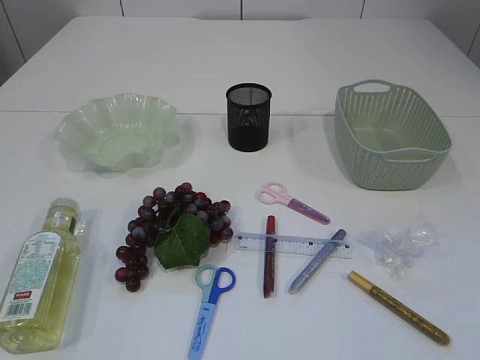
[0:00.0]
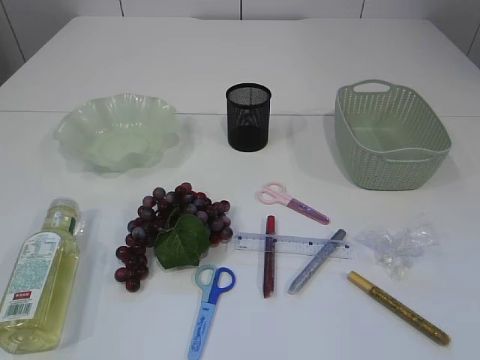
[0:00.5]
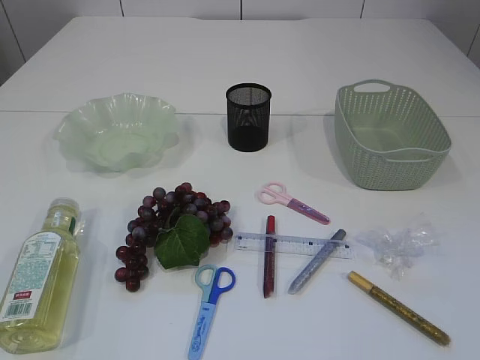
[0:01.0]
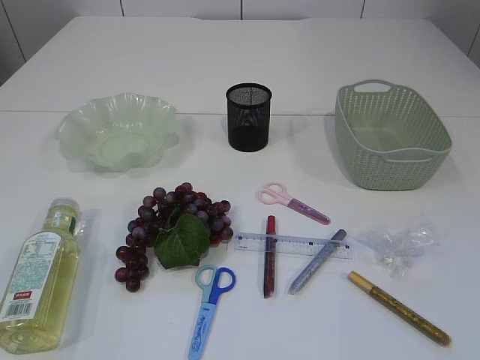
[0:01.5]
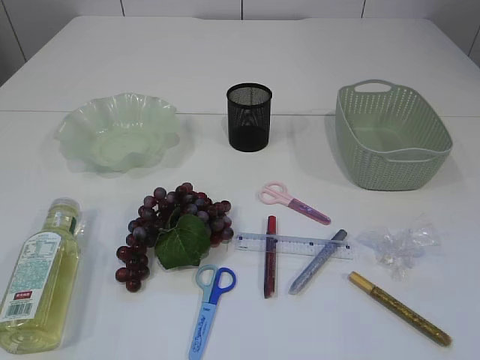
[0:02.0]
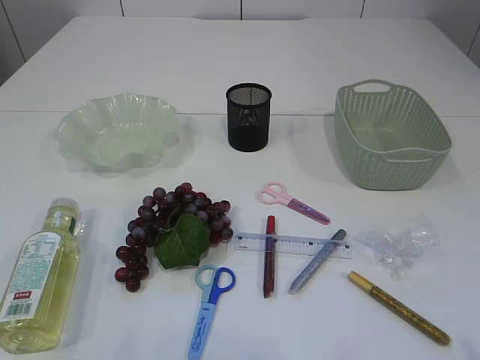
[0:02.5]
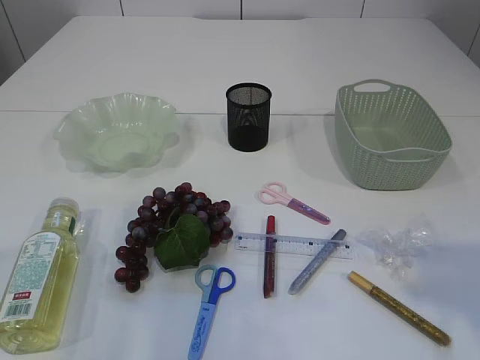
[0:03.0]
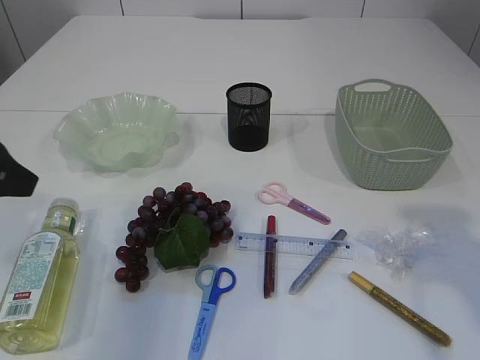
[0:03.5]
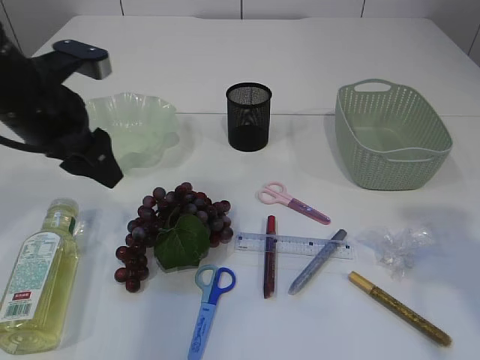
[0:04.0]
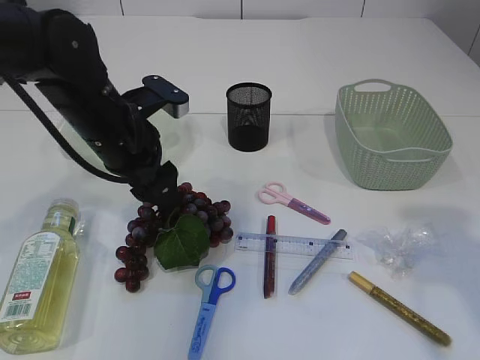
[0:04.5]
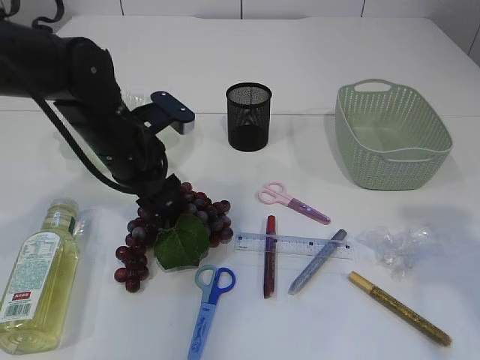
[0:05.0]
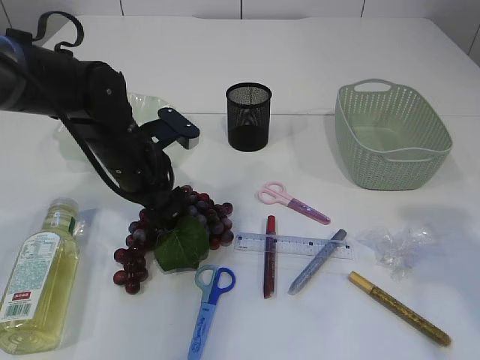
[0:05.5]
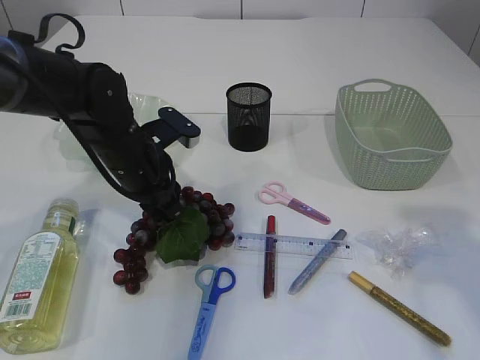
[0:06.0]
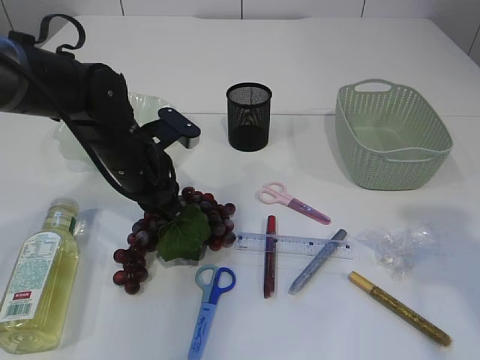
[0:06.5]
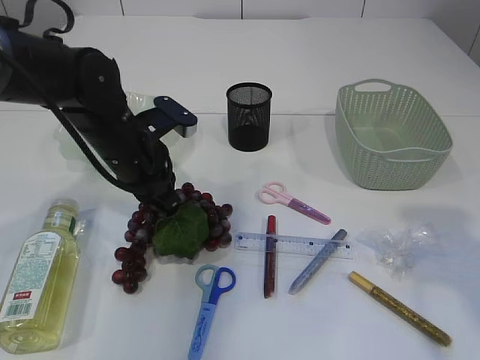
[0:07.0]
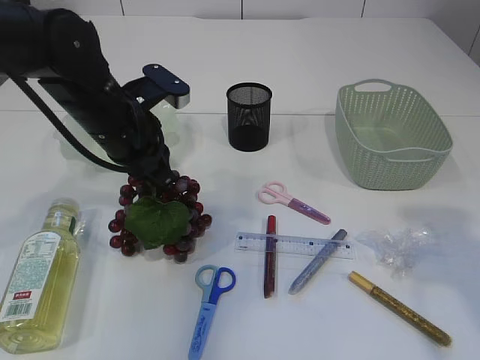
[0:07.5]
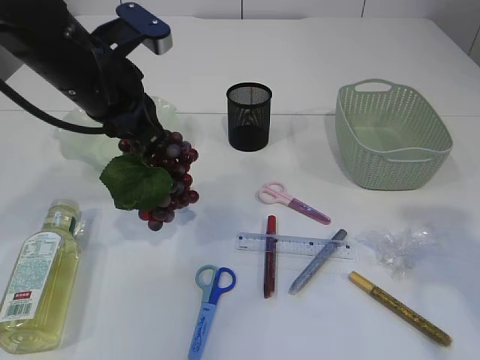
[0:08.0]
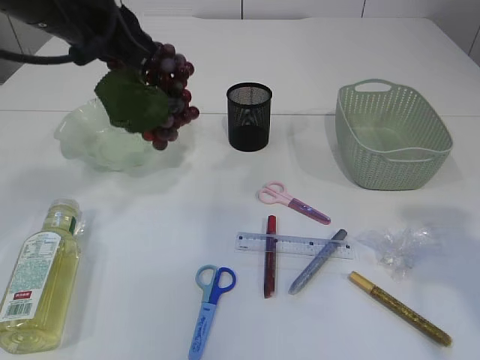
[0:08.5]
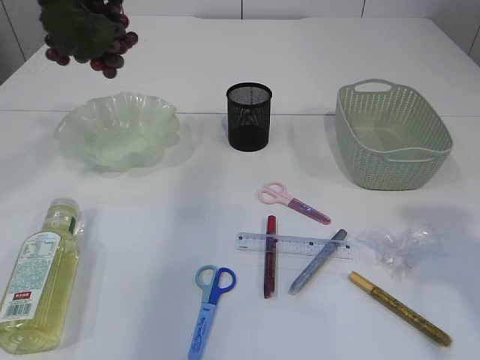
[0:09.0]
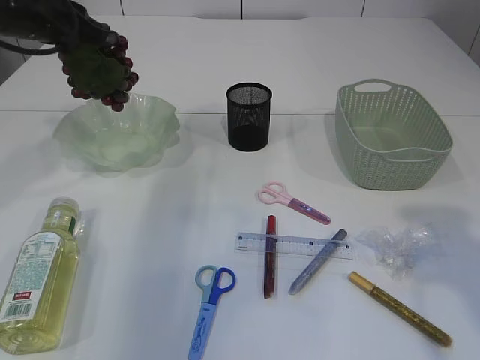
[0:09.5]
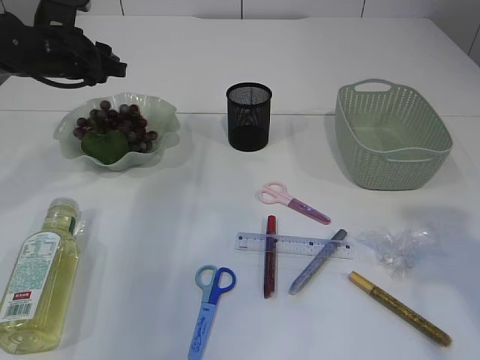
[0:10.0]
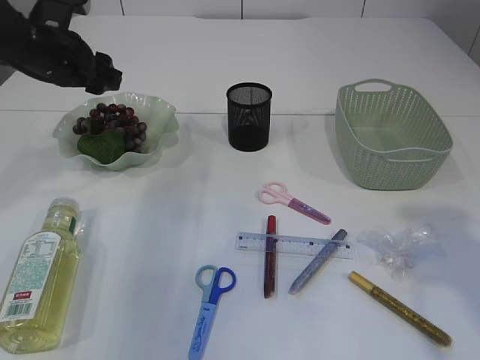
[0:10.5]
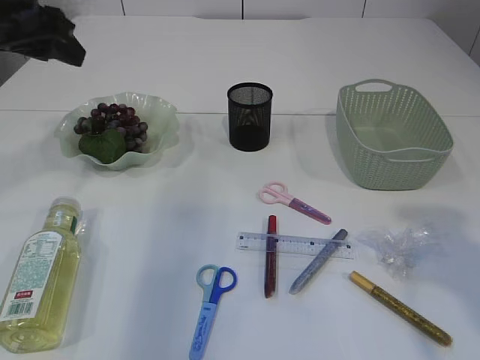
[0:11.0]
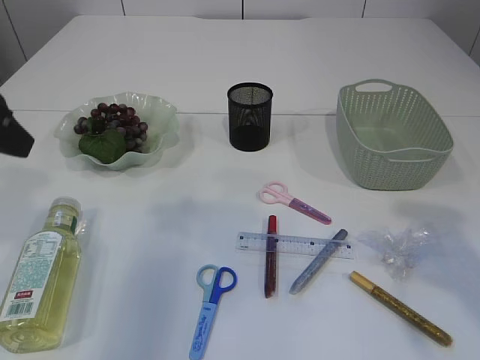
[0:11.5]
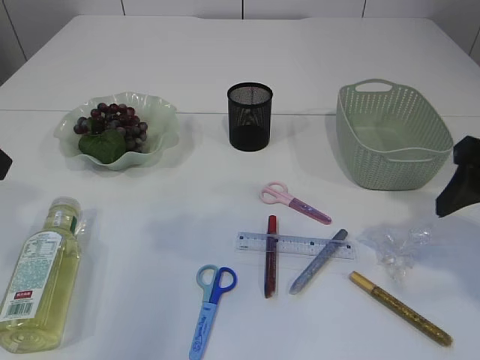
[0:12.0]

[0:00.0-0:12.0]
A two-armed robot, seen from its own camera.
Step, 0:00.0 to 0:08.0: Pick up the grapes.
Step, 0:08.5 to 0:11.0: Place the grapes in the plate.
0:02.0 to 0:04.0: The left gripper moves forward, about 35 cm; the right gripper is displaced forward by approximately 20 cm.
0:04.0 to 0:06.0: The left gripper shifts about 15 cm downward and to the right, and closes its fingers.
0:06.0 to 0:08.0: The left gripper is displaced upward by approximately 10 cm, and closes.
0:08.0 to 0:10.0: The left gripper moves forward and to the left, approximately 15 cm, reaches roughly 10 cm upward, then returns, and opens.
0:10.0 to 0:12.0: The right gripper travels forward and downward by roughly 10 cm. Meanwhile the left gripper shifts roughly 25 cm backward.

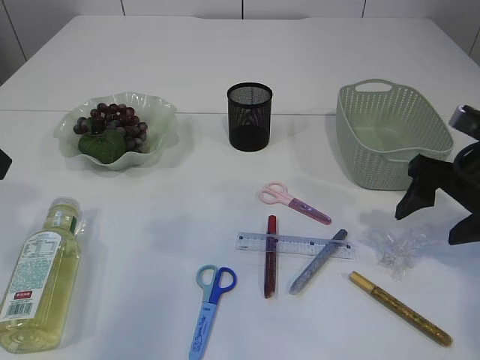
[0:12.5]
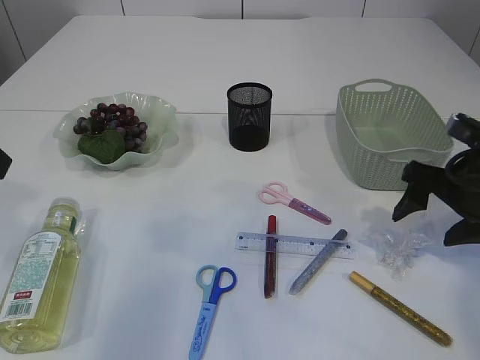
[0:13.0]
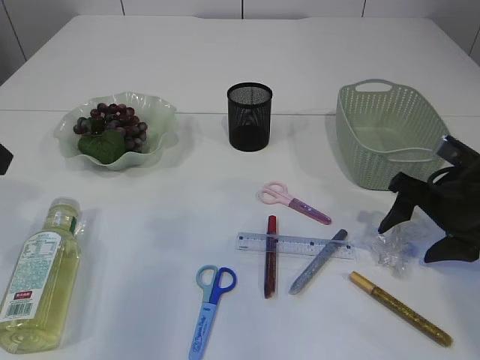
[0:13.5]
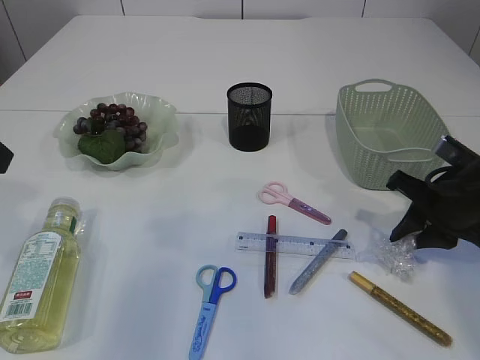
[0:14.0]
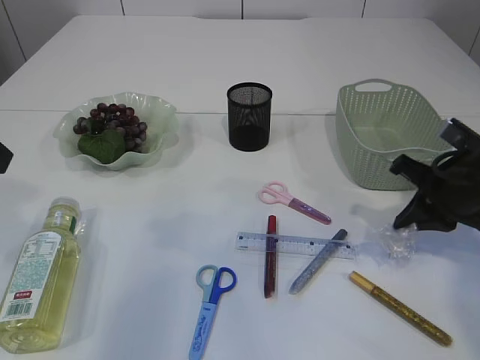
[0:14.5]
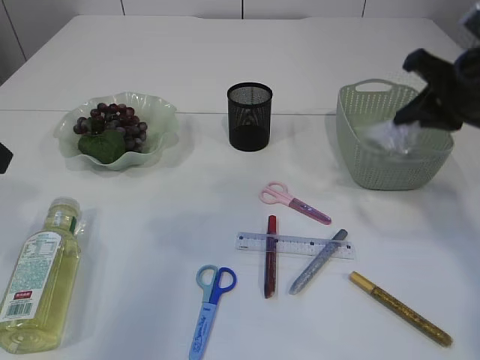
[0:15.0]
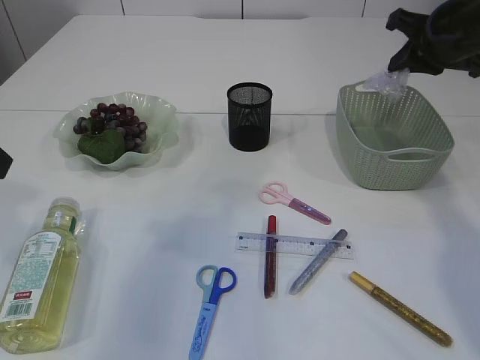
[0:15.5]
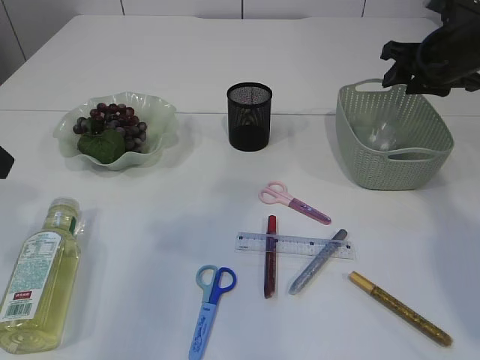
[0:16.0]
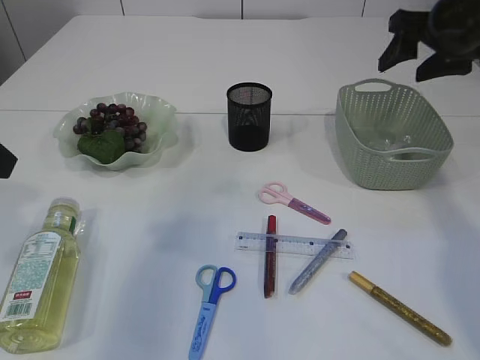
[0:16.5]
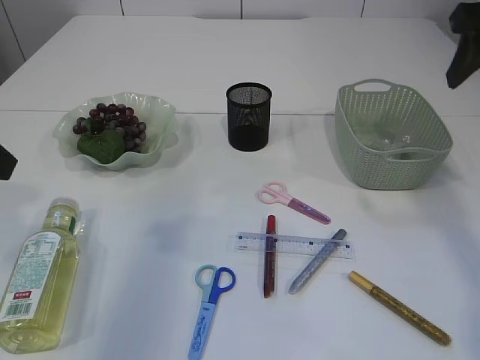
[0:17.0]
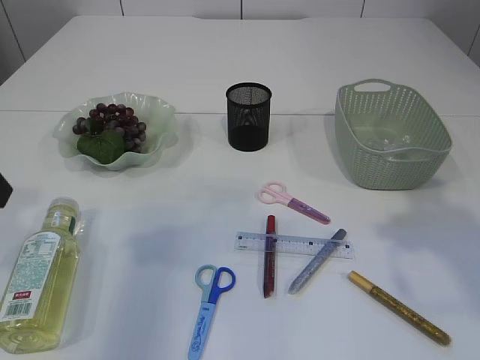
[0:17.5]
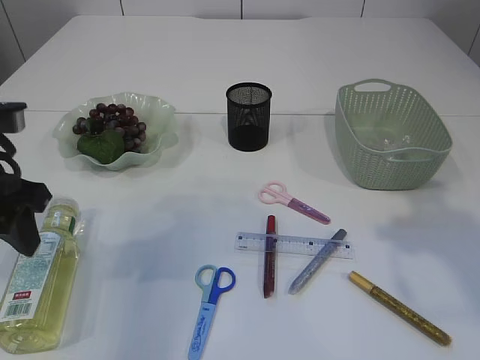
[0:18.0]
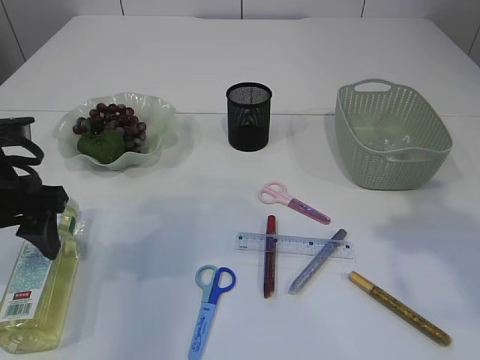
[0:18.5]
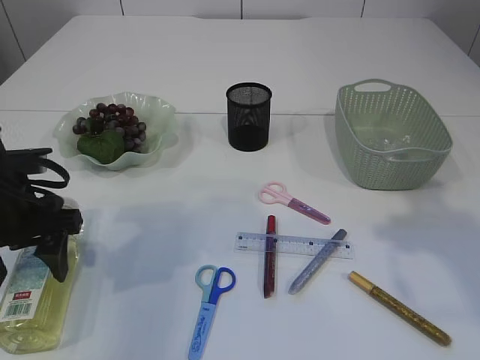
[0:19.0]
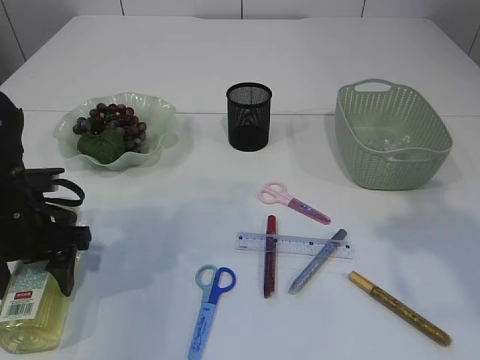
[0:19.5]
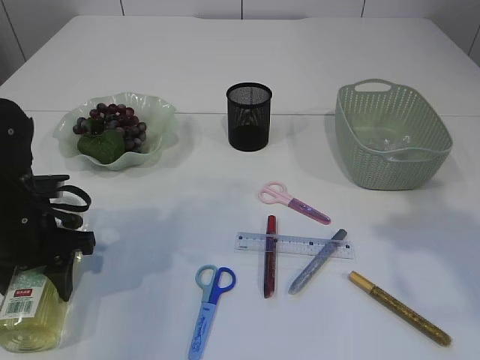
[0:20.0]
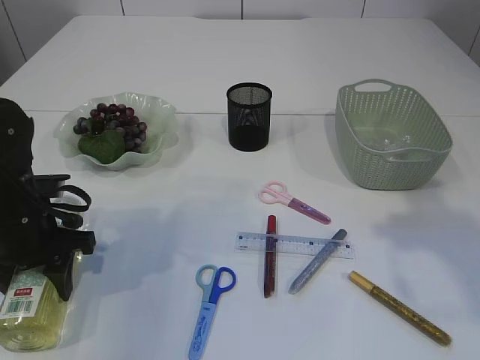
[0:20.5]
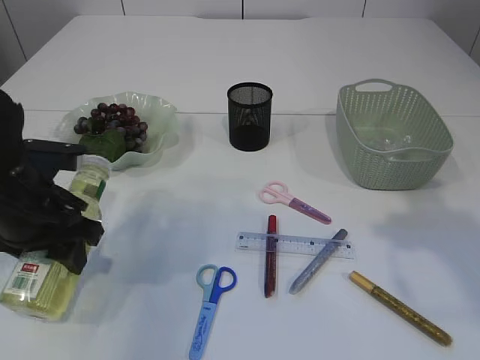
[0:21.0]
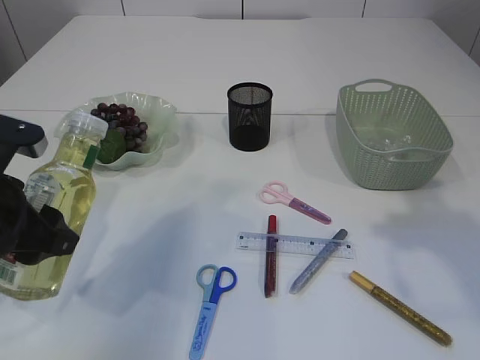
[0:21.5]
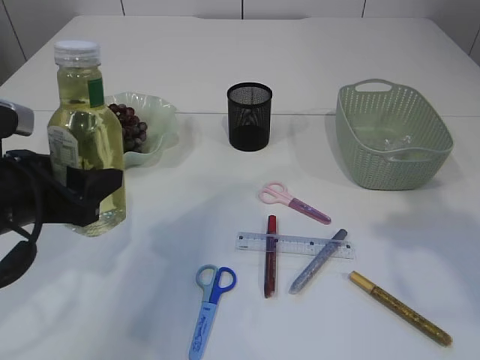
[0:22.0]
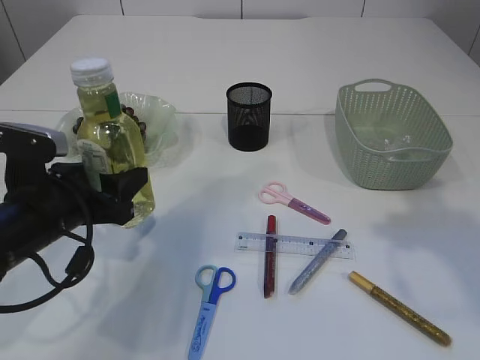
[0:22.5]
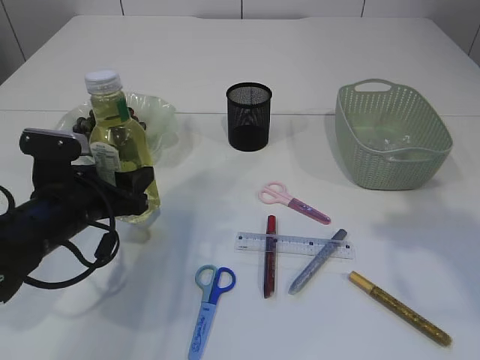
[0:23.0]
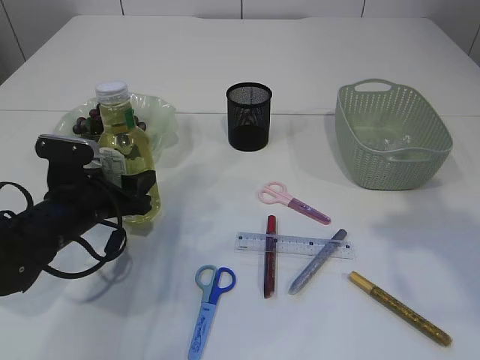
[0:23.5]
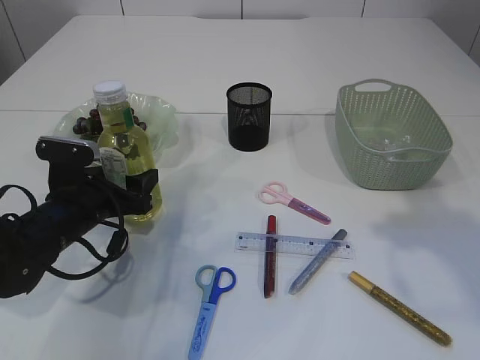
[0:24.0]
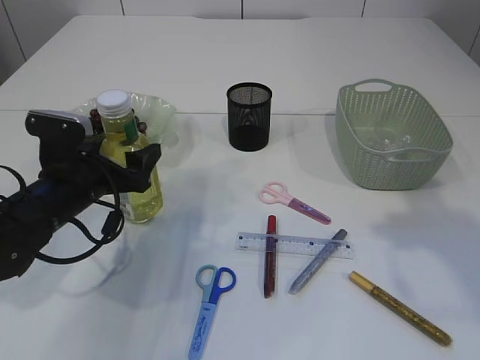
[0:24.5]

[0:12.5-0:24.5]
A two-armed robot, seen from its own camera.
Step, 0:12.5 to 0:14.5: Pick up the plastic.
Step, 0:15.0 to 0:16.5: Place the plastic in the basket.
Step, 0:17.0 to 0:21.0: Pick up the bottle with the left arm.
0:12.5 to 0:14.5: The right gripper closes up.
0:14.5 to 0:16.5: The right gripper swings up and down, approximately 15 cm each way, with 2 reversals, and opens up.
0:16.5 to 0:18.5: The right gripper heads backward, covering some 20 cm. The left gripper heads downward, covering about 10 cm, and opens its fingers.
0:18.5 to 0:20.5: The left gripper travels downward by some 10 cm, and closes.
0:20.5 to 0:22.5: The left gripper reaches approximately 10 cm upward, then returns.
0:22.5 to 0:24.5: The left gripper moves forward, some 5 cm, and opens.

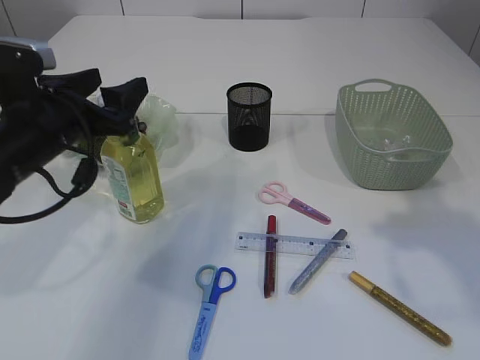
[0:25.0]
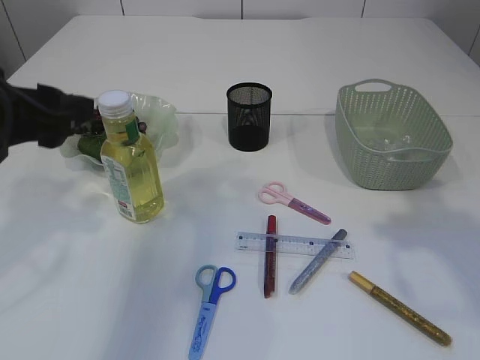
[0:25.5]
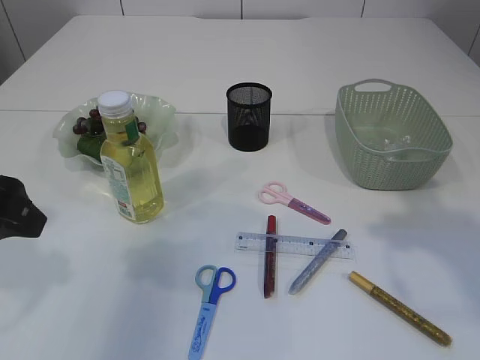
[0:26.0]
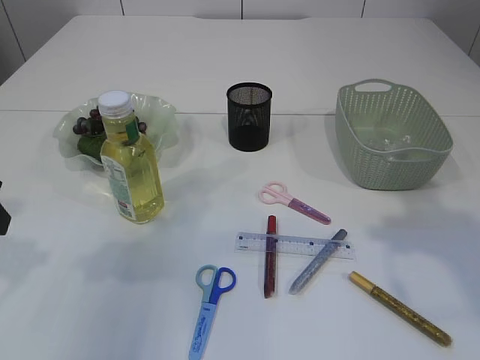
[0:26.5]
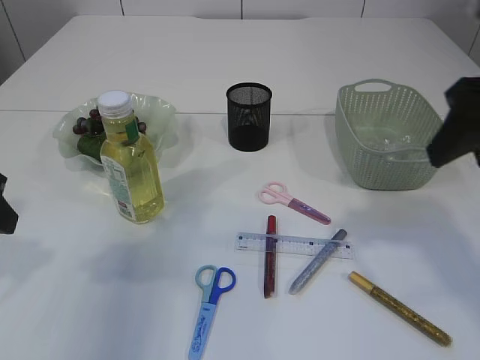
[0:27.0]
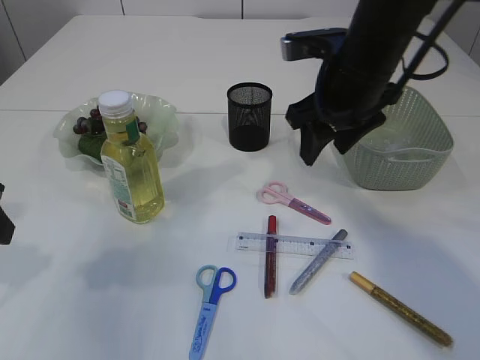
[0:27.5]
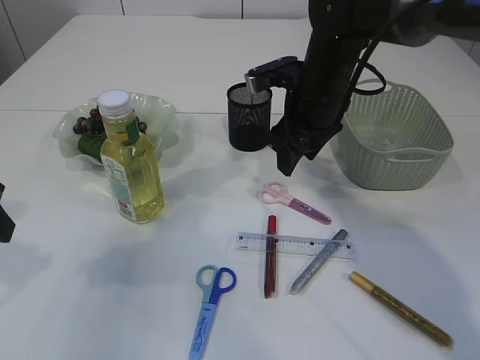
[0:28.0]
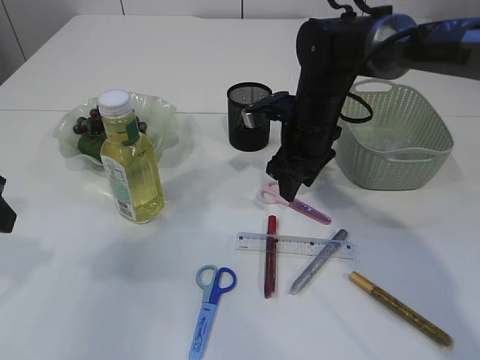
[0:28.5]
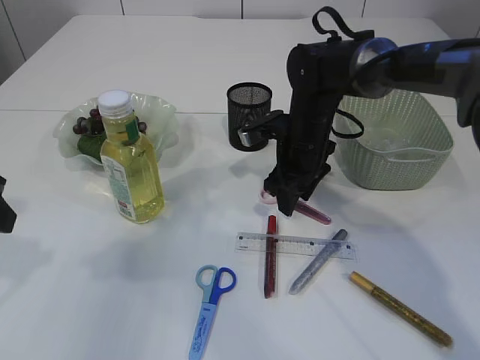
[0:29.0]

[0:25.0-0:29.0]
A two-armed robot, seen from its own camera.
0:25.0 to 0:27.0: The left gripper is displaced backward and to the left by some 10 cm.
0:27.0 to 0:29.0: The right gripper heads forward, downward and to the left, covering about 30 cm.
